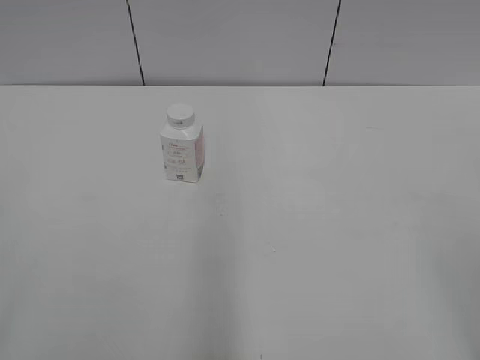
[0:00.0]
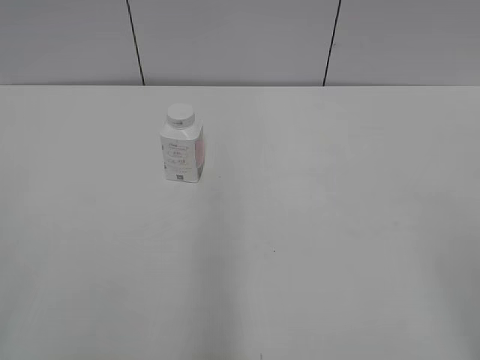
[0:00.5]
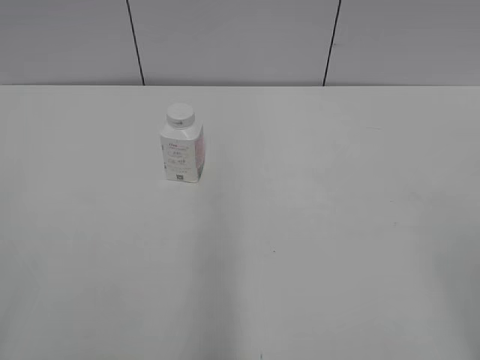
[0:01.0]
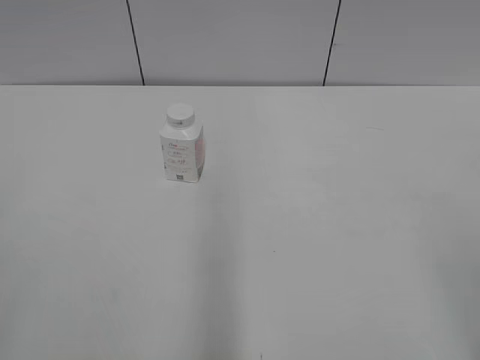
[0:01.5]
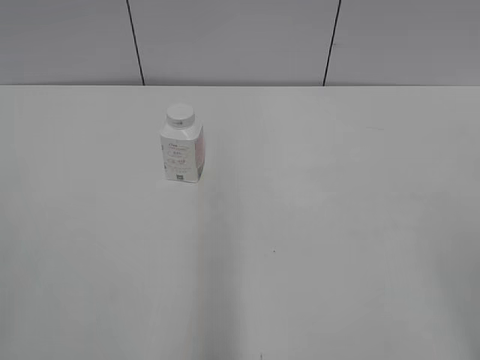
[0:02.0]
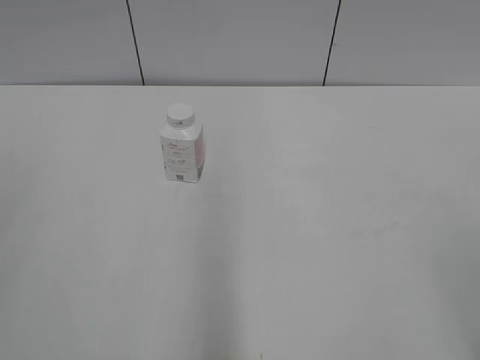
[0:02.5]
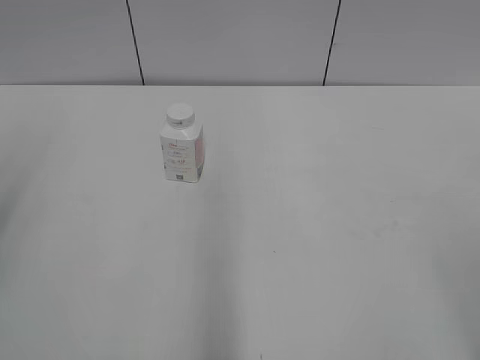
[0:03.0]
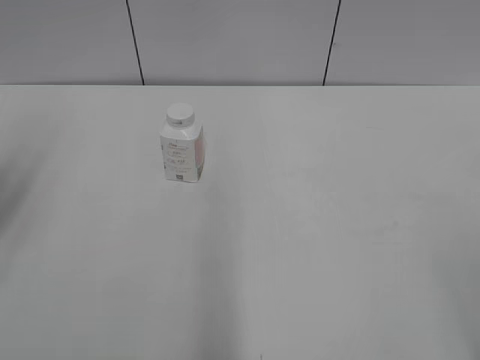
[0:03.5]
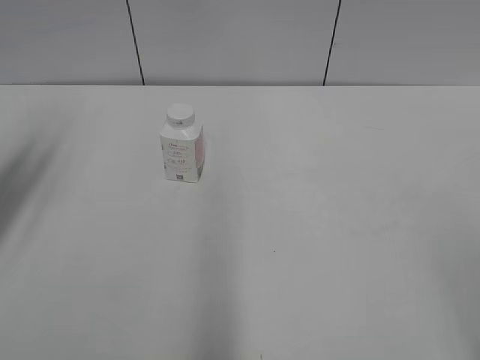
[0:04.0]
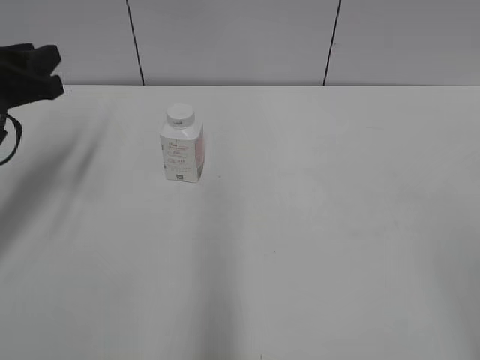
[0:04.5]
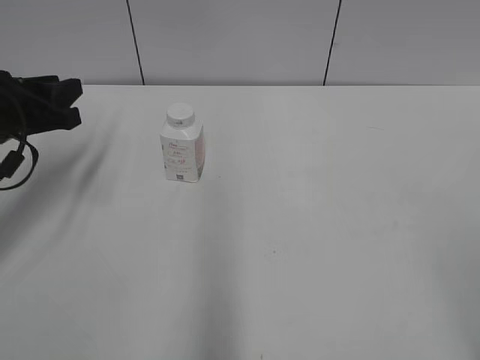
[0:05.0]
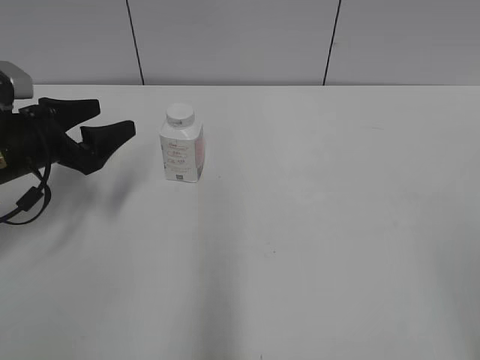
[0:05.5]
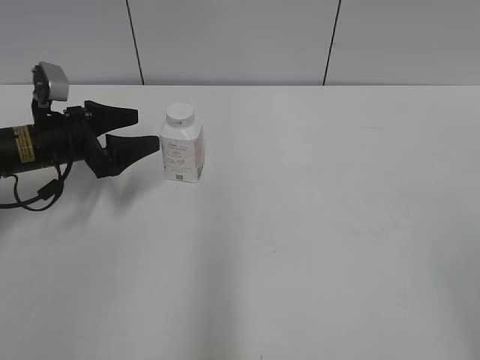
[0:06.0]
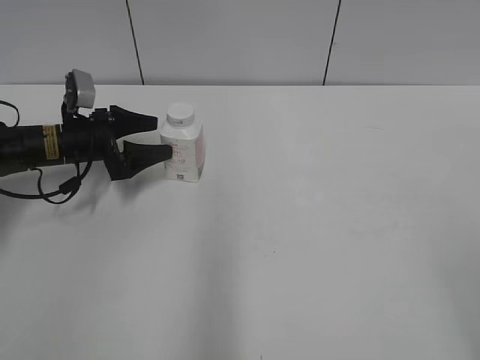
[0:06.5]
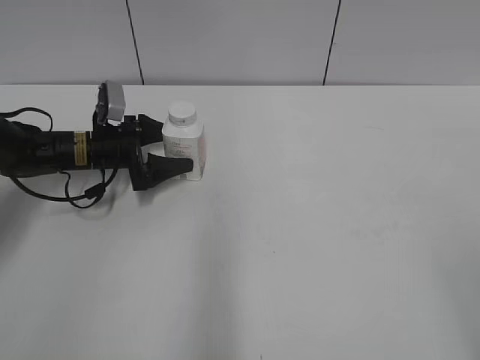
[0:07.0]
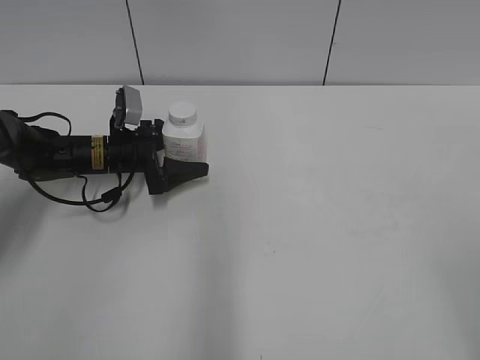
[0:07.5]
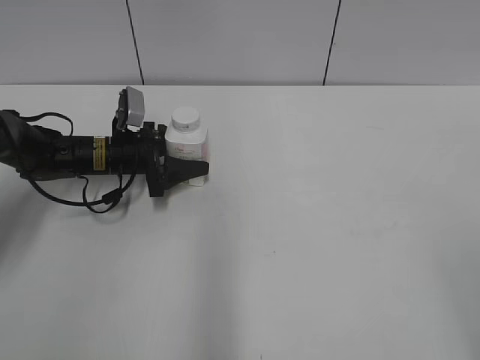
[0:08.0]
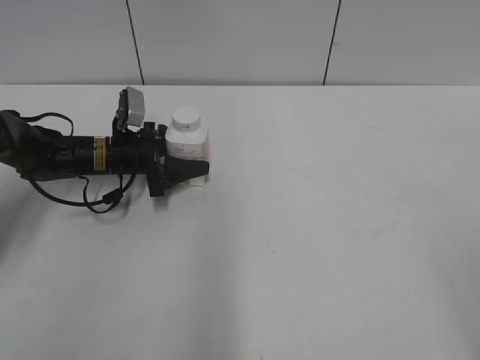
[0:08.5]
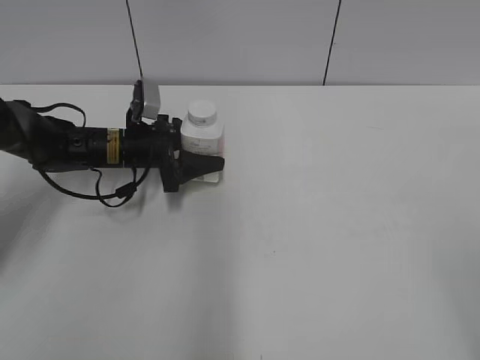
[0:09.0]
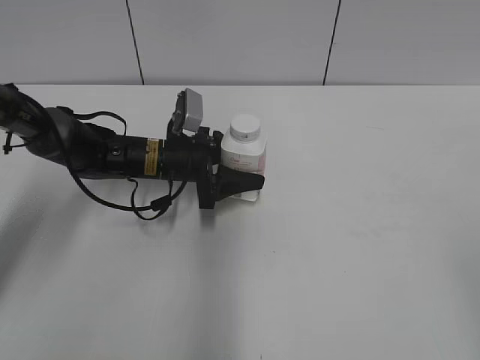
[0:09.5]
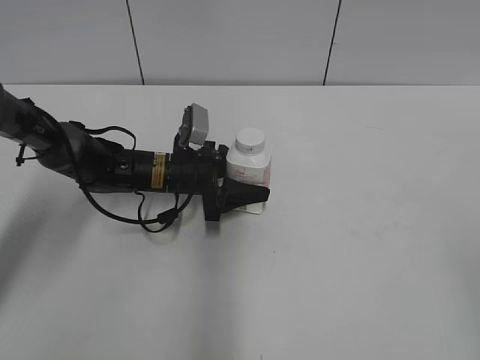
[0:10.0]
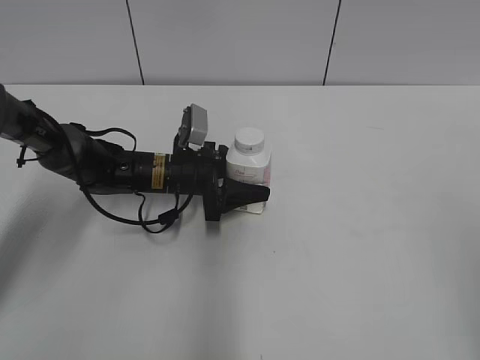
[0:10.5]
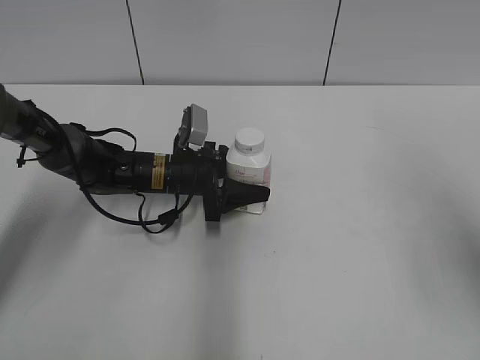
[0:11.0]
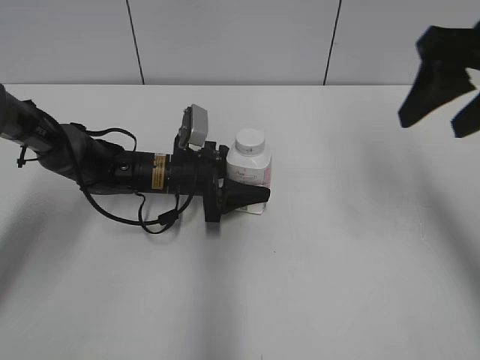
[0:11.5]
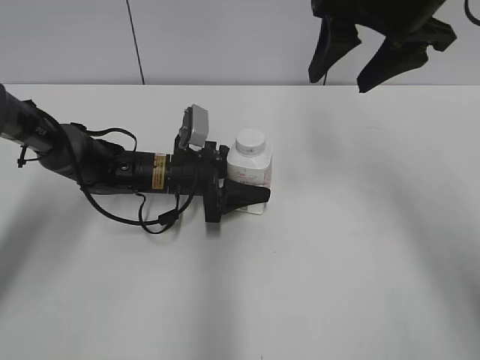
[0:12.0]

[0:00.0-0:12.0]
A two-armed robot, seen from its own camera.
Step, 0:00.0 to 0:08.0: Grasp the bottle and move it to the center of the table with the left gripper.
Step, 0:08.5 to 0:10.0: Lift the bottle and move it to the center of the table with the left gripper.
0:02.0 to 0:04.0: The left gripper is displaced forward by approximately 30 cm.
0:04.0 to 0:06.0: The left gripper shifts approximately 20 cm downward and forward, and opens its fingers.
0:06.0 to 0:08.0: The left gripper travels to the right, downward and forward by some 10 cm, and closes its fingers.
0:08.0 to 0:10.0: The left gripper travels to the right by about 10 cm.
0:10.0 to 0:12.0: The right gripper is displaced forward and to the left by some 40 cm.

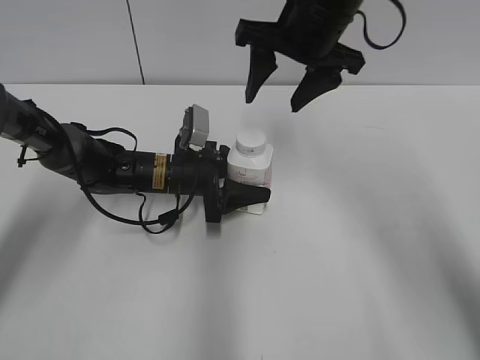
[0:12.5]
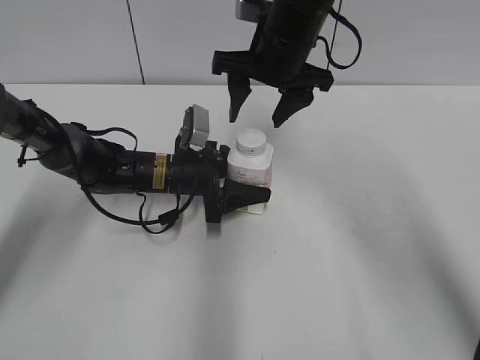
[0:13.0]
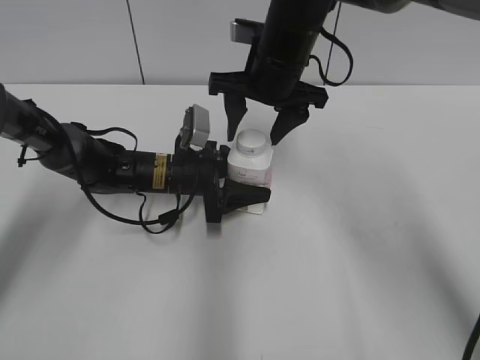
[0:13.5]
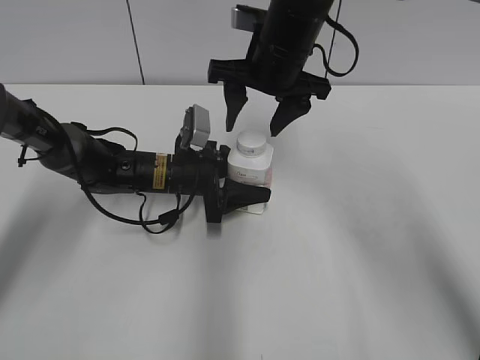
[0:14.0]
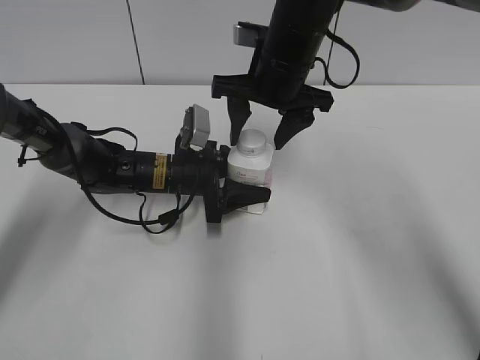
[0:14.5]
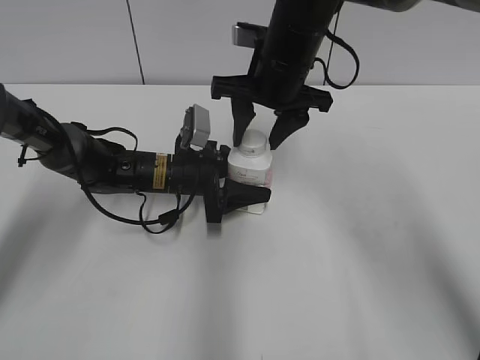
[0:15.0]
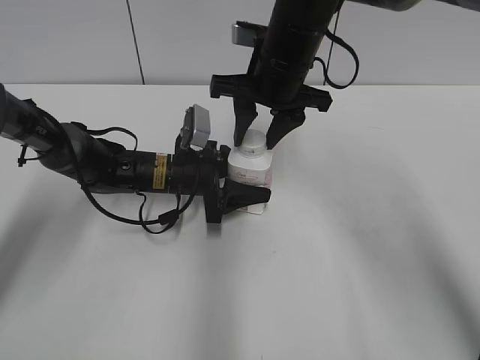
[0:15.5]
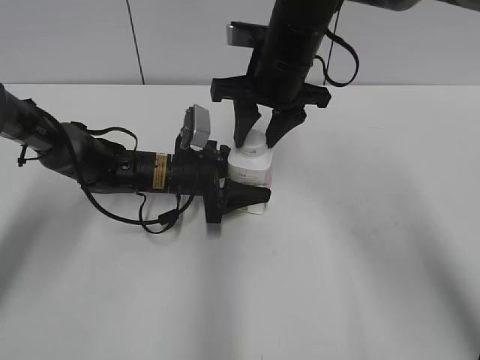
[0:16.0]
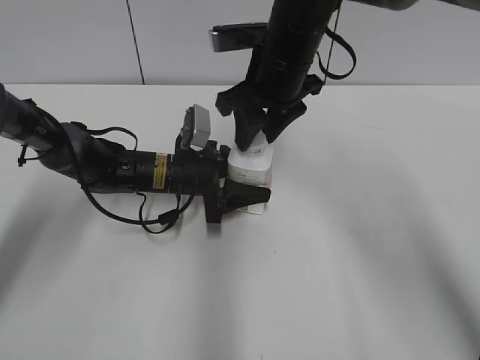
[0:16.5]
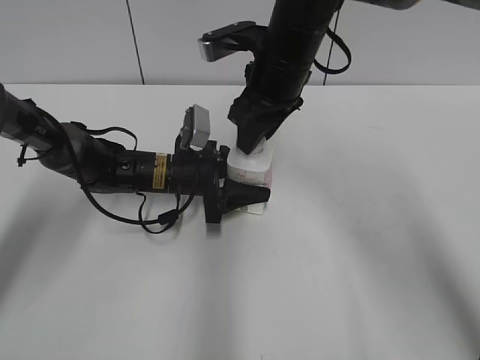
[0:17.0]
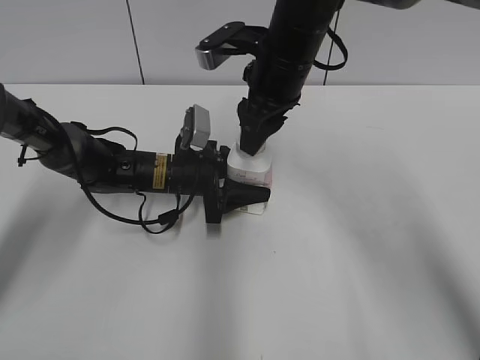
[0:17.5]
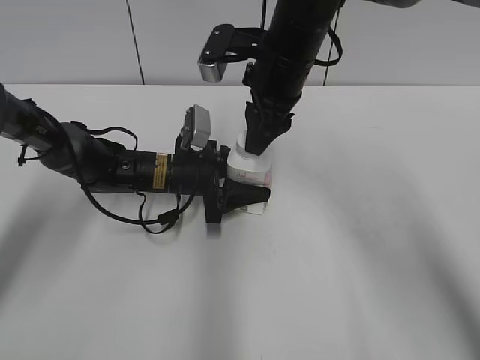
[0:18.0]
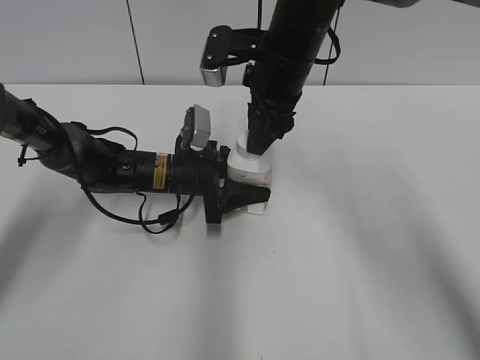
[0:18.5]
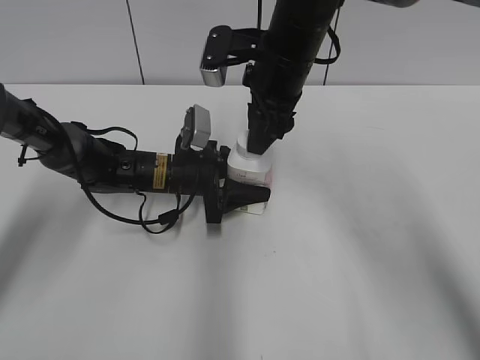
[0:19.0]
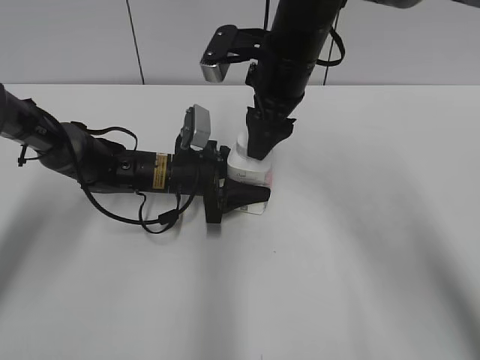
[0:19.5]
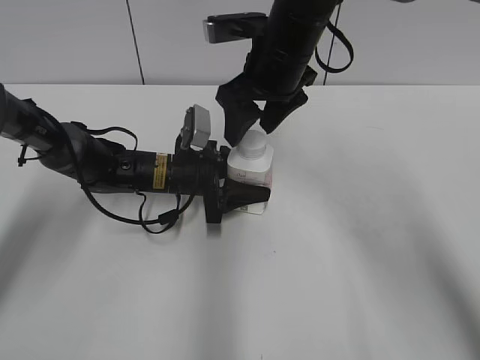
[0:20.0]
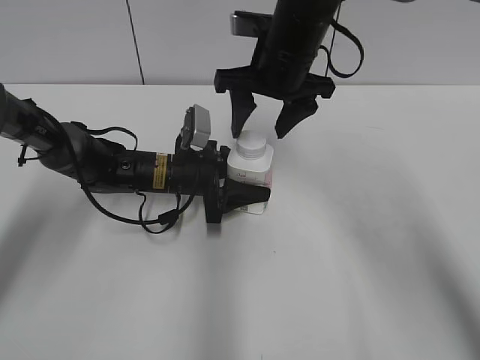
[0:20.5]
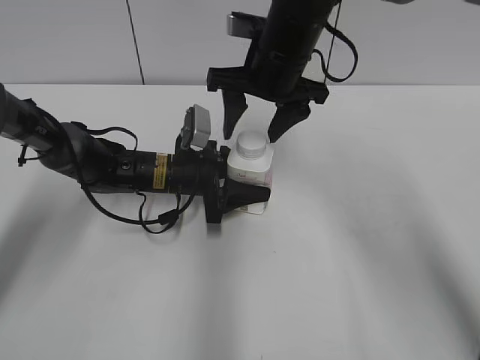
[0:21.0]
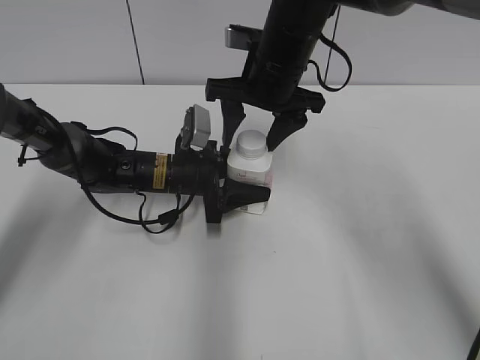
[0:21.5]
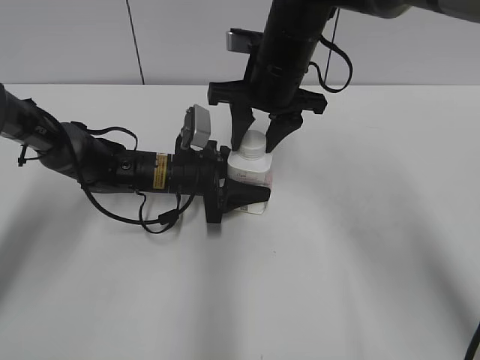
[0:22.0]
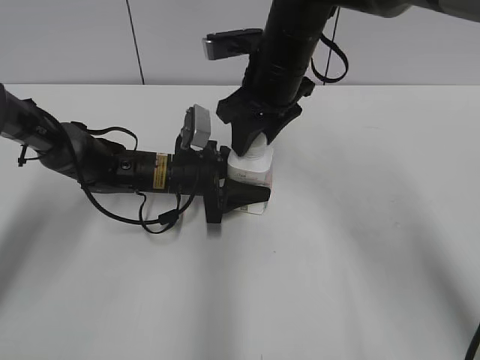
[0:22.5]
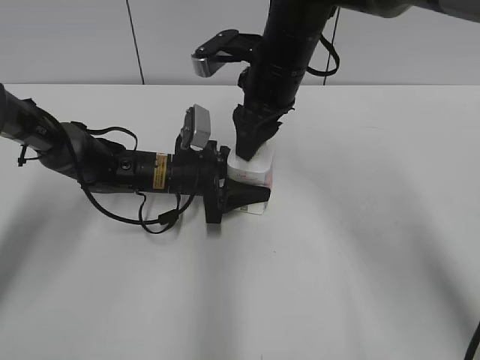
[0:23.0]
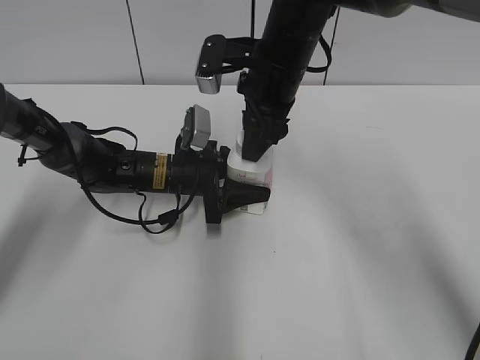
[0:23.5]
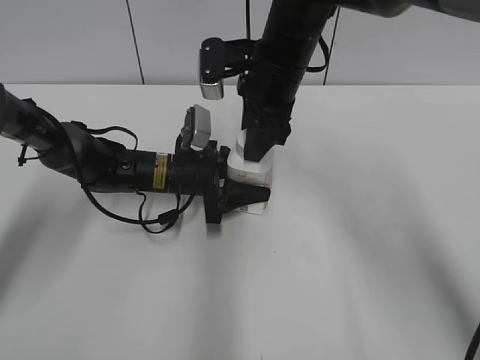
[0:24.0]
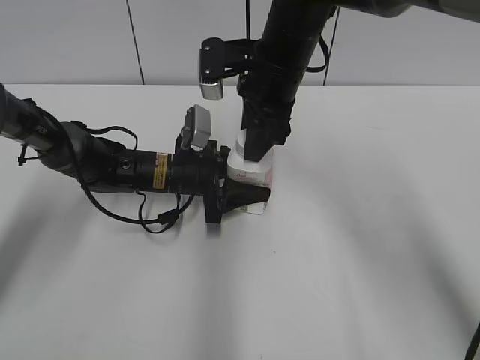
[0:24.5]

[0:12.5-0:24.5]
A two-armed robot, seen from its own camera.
0:12.5 to 0:14.5: The right gripper travels downward by roughly 5 cm.
0:14.5 to 0:16.5: The right gripper closes its fingers.
0:18.5 to 0:20.5: The right gripper opens.
0:20.5 to 0:22.5: The right gripper closes.

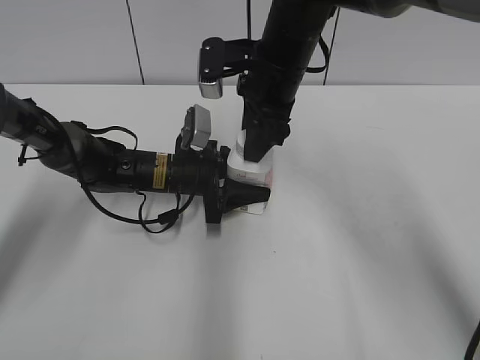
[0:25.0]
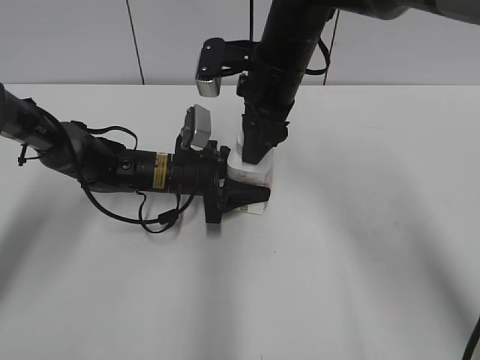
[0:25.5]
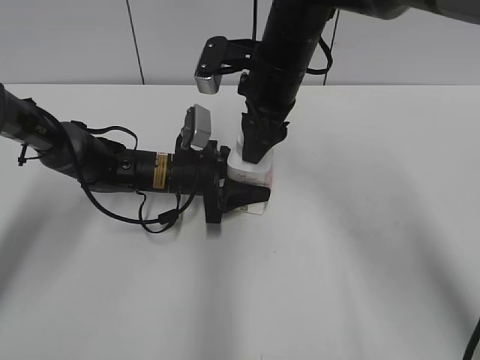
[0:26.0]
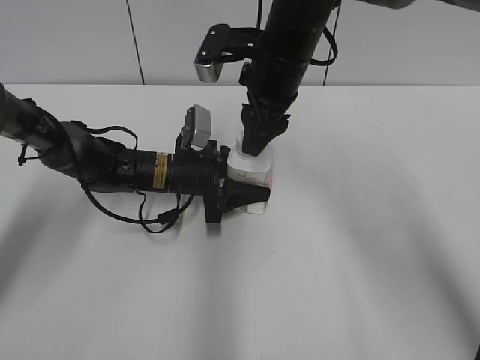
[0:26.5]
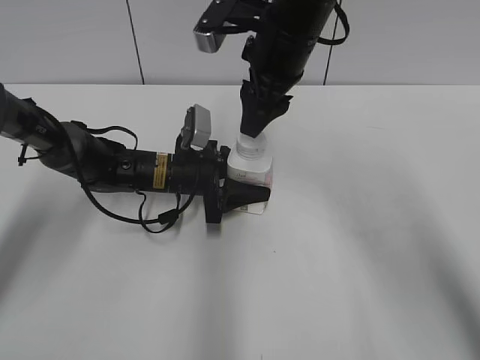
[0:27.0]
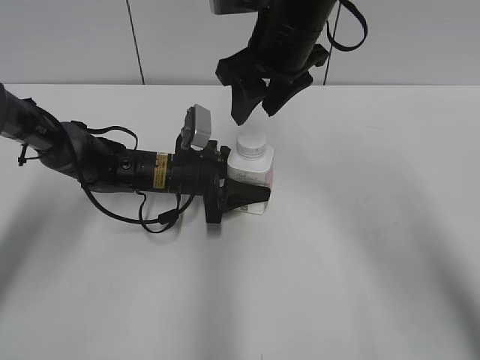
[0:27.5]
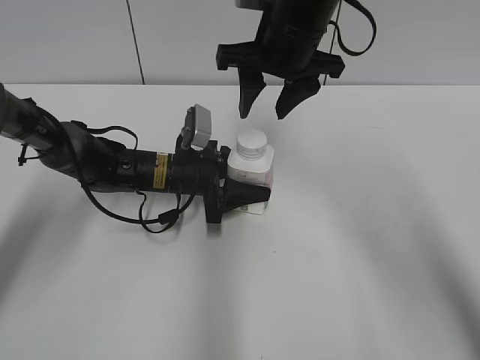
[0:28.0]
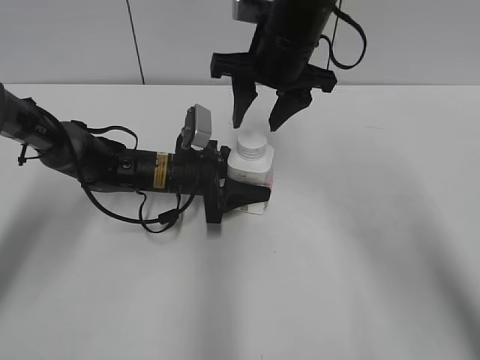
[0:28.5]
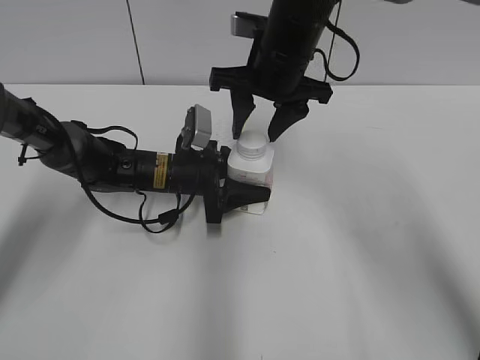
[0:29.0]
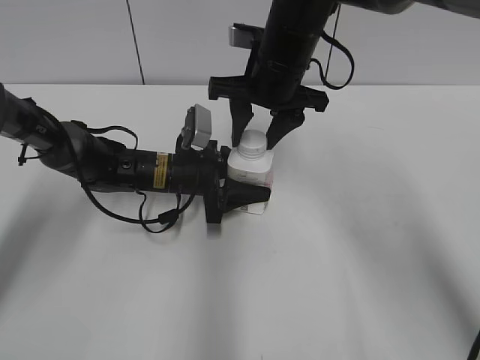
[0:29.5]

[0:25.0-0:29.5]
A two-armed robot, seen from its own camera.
0:25.0 to 0:27.0: The grippers stay close to where they were, moving slightly.
